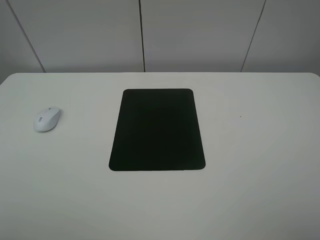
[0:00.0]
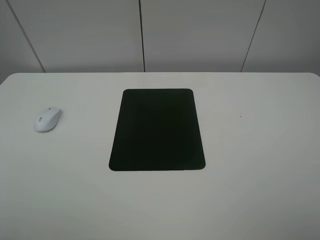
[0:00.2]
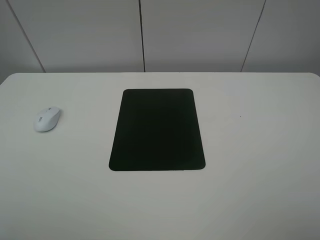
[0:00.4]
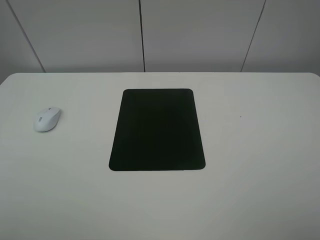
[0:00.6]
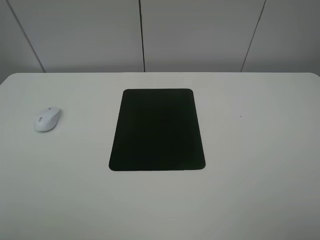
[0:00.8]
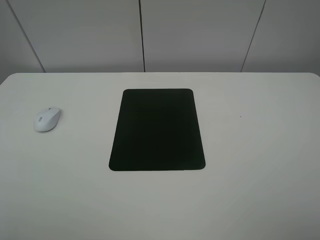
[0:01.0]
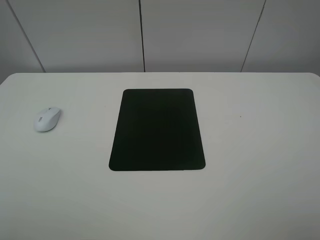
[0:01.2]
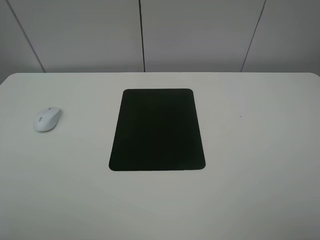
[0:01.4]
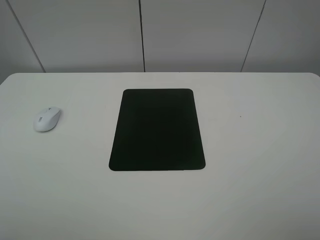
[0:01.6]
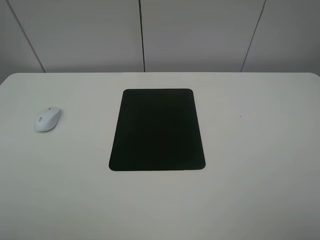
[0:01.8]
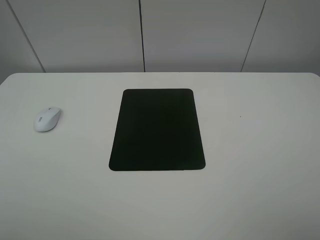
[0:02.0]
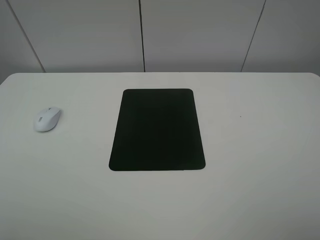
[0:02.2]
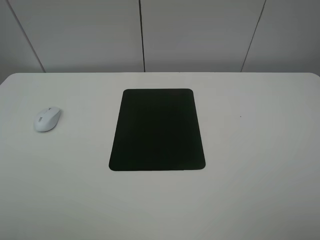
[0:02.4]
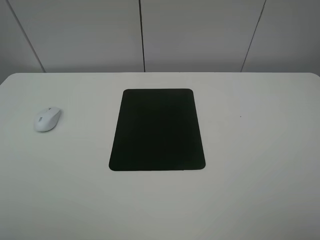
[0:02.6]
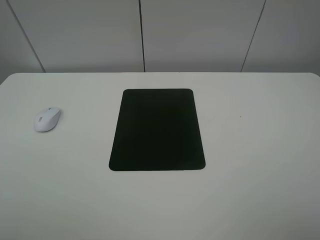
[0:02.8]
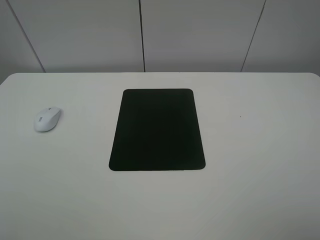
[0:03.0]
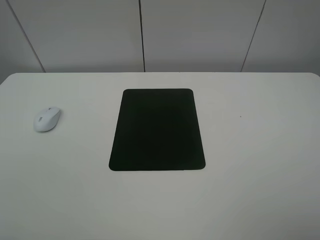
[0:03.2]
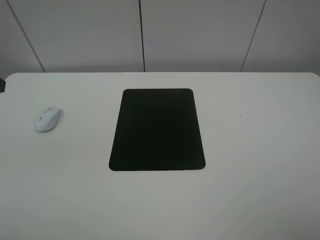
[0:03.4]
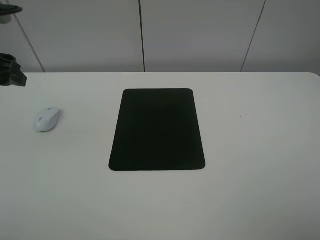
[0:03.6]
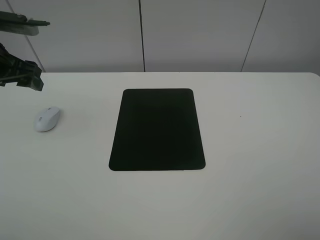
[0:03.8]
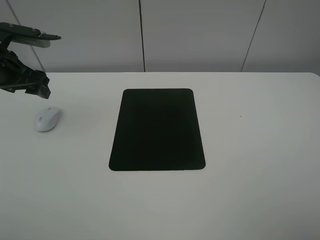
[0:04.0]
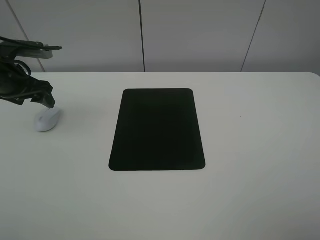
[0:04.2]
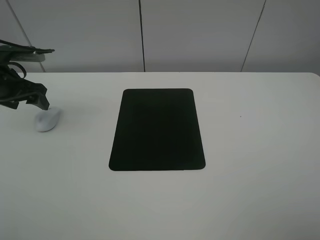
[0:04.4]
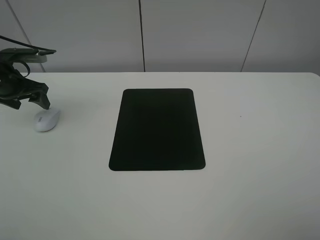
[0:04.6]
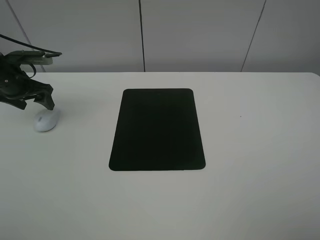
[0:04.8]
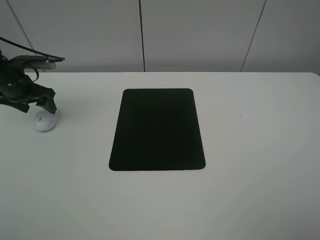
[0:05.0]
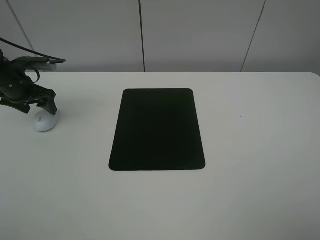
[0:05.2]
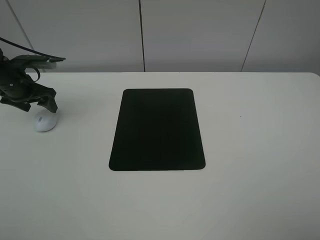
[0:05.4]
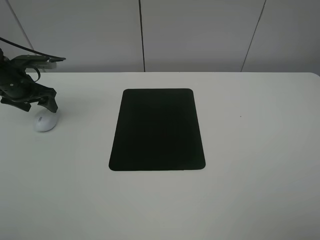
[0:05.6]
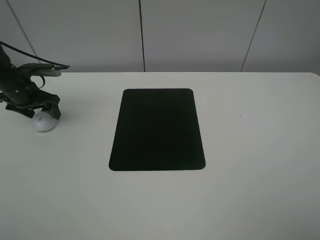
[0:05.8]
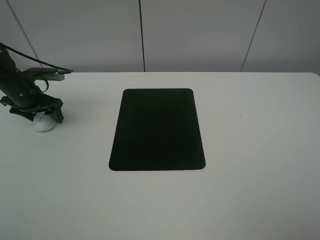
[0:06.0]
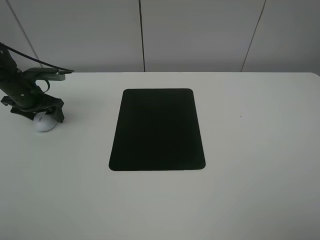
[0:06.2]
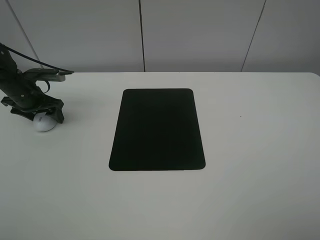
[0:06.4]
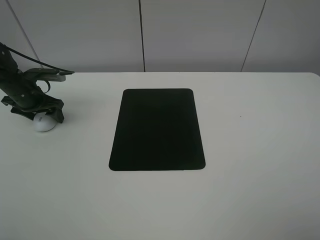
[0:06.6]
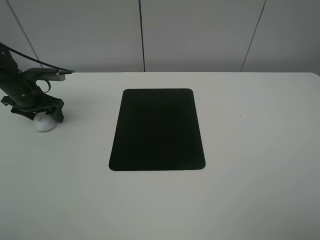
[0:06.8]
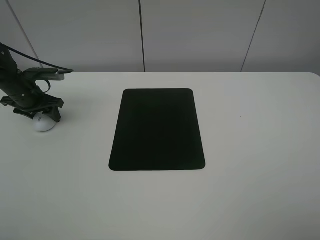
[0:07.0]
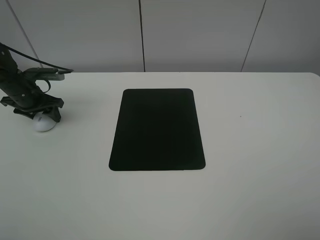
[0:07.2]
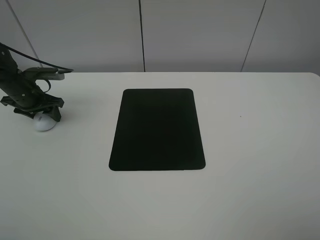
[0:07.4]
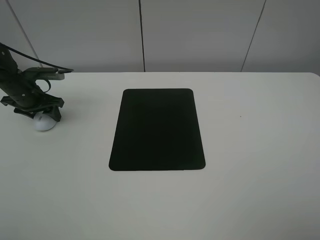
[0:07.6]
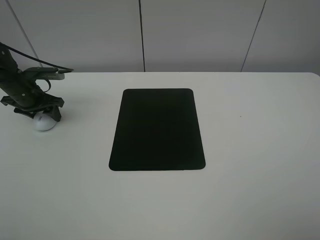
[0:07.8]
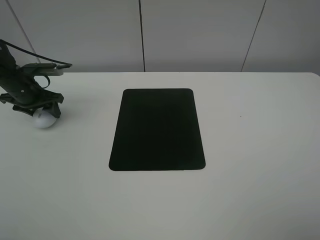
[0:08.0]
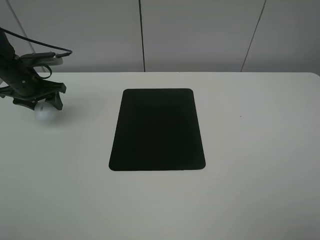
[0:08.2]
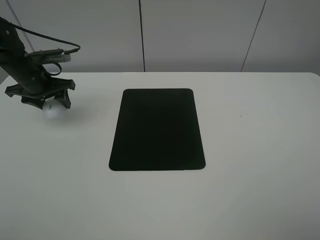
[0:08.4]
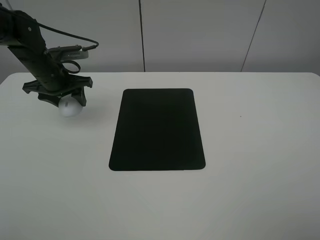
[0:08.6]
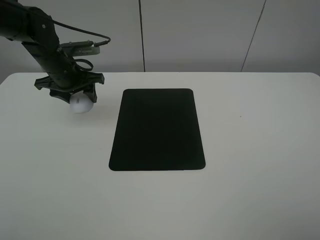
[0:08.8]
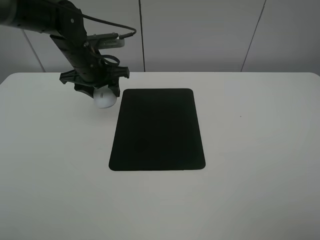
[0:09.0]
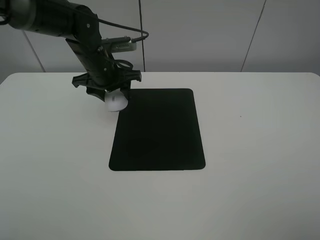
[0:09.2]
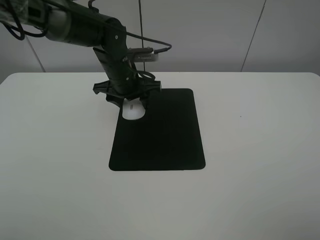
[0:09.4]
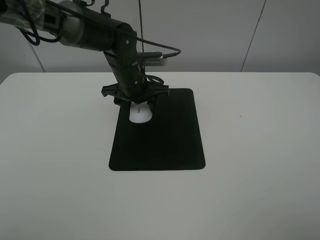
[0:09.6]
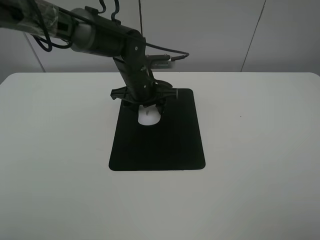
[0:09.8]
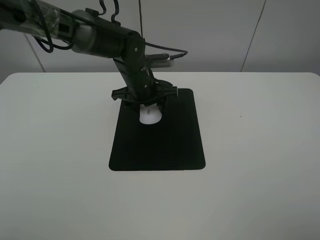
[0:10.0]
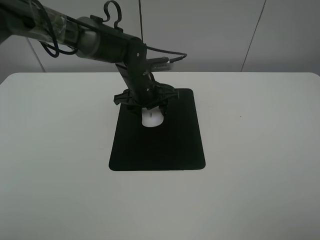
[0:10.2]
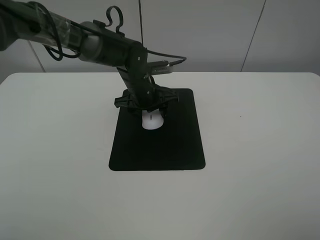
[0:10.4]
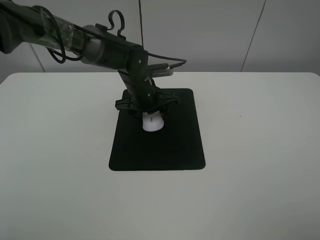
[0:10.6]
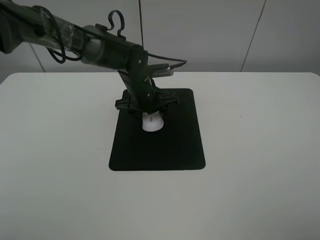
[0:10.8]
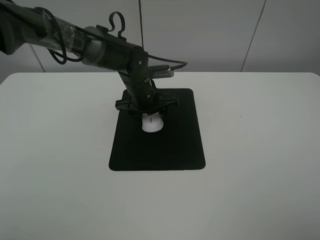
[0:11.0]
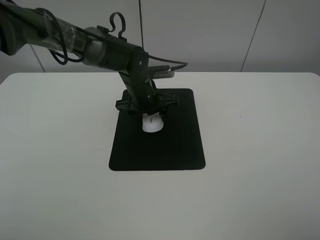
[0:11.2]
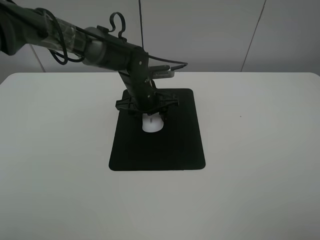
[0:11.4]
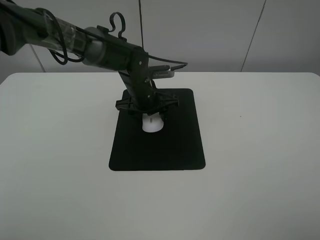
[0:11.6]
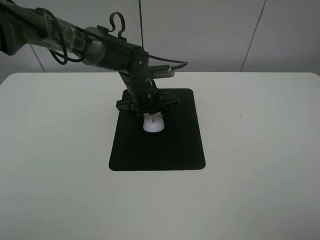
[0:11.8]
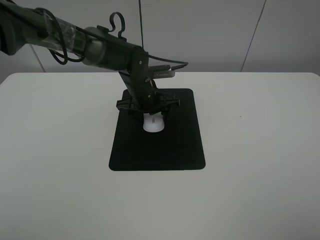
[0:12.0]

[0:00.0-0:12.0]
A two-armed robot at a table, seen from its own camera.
Step, 0:00.0 to 0:07.6: Grasp the mouse with the left gripper.
0:00.0 to 0:01.6: The two grippers keep their place.
0:03.0 to 0:04.4: The left gripper heads forward and downward, covering roughly 30 cm.
0:04.4 to 0:06.0: The left gripper is displaced downward by about 5 cm.
0:07.6 to 0:09.0: The left gripper is displaced to the right and upward by approximately 20 cm.
0:09.0 to 0:10.4: The left gripper travels to the right and downward by about 10 cm.
0:10.4 to 0:12.0: The left gripper opens up.

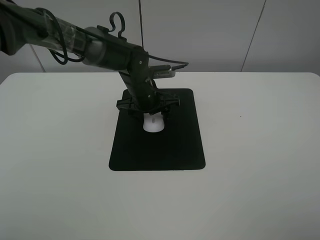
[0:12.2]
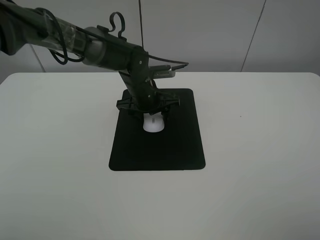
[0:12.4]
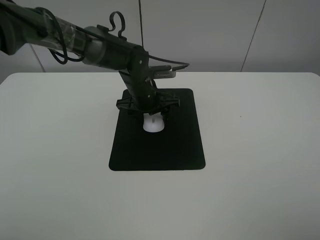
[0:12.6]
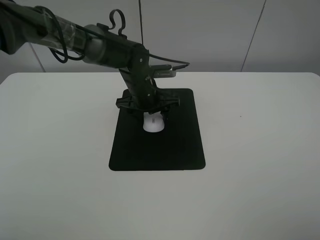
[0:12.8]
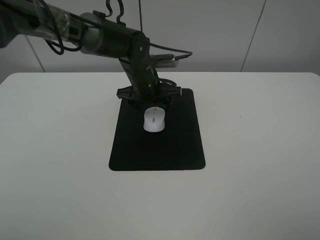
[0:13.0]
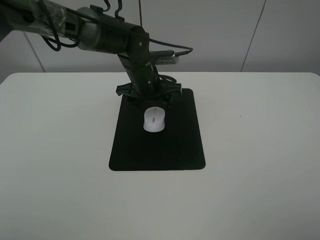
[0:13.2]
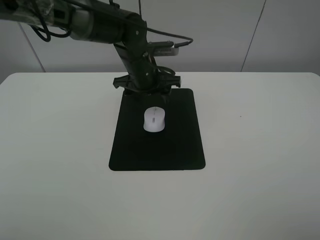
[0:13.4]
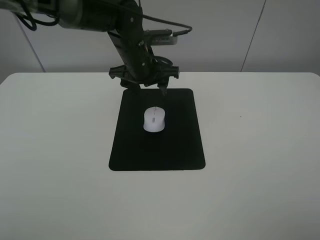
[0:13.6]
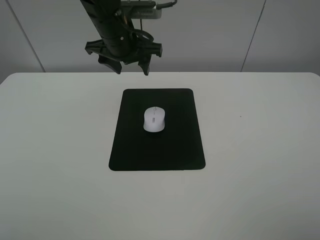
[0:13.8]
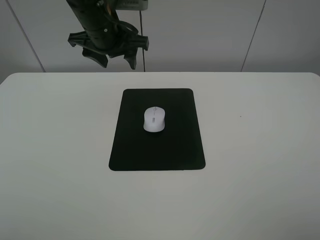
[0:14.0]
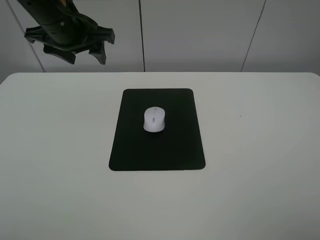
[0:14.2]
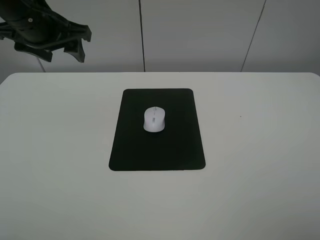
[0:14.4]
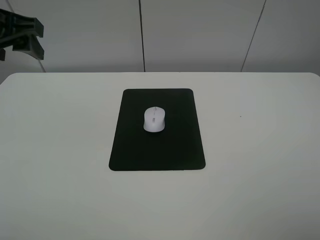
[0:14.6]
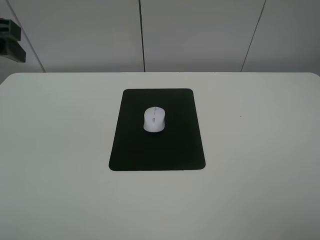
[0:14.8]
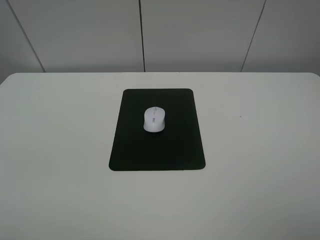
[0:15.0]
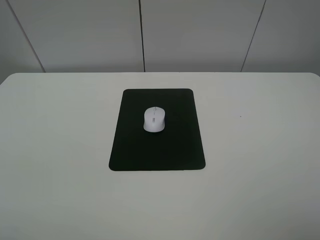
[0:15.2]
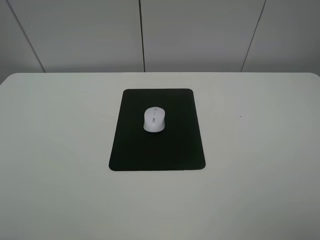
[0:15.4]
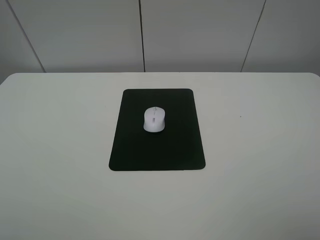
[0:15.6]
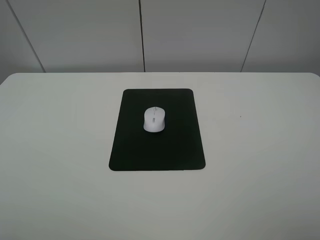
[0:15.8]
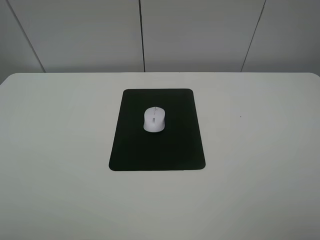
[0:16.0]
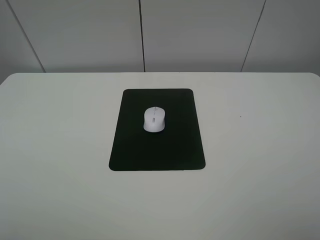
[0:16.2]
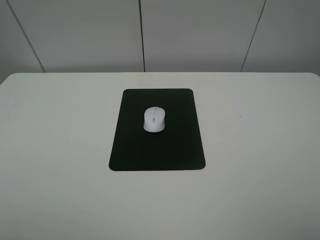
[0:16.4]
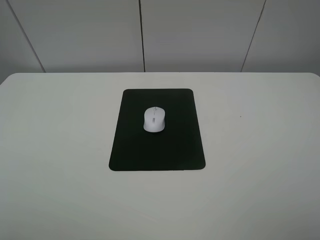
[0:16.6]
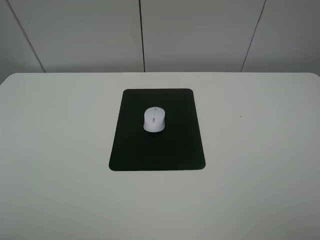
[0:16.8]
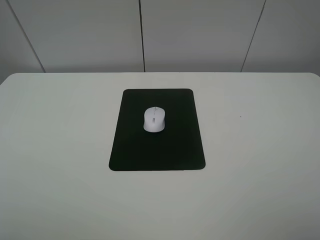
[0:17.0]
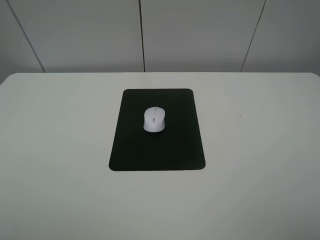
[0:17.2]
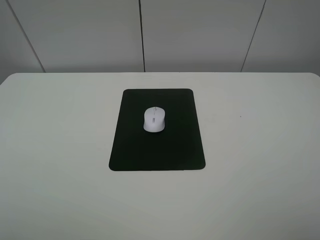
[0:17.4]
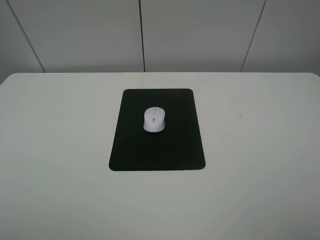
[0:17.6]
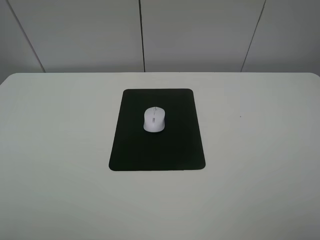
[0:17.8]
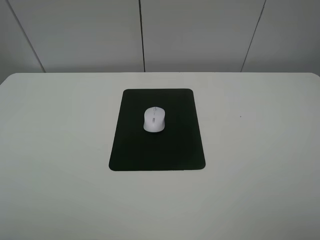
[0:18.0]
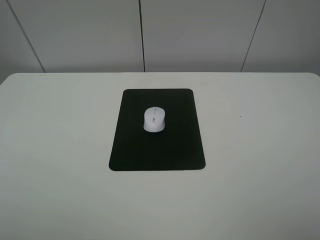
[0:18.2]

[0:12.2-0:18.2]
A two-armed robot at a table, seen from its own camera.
0:12.2 to 0:13.8: The left gripper goes some 15 cm upward.
0:13.8 to 0:15.2: The left gripper travels to the left, backward and upward by approximately 35 cm.
